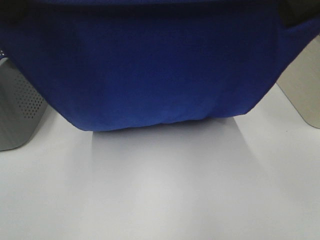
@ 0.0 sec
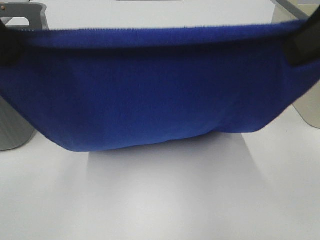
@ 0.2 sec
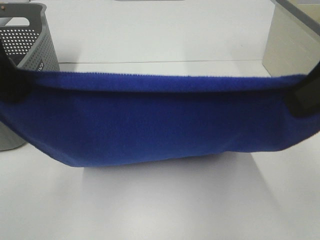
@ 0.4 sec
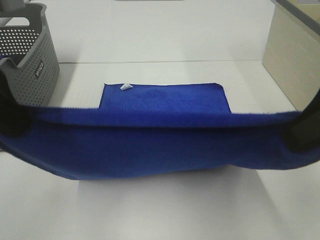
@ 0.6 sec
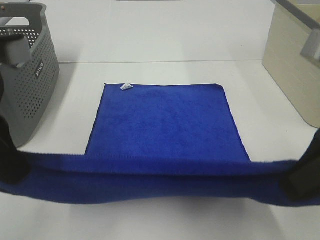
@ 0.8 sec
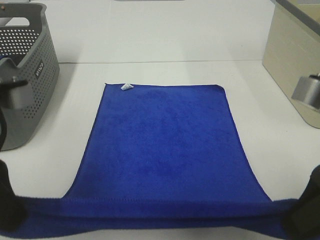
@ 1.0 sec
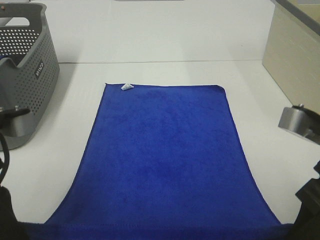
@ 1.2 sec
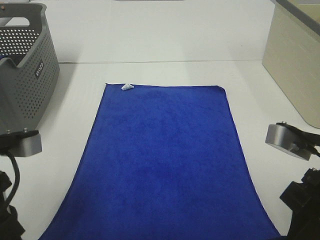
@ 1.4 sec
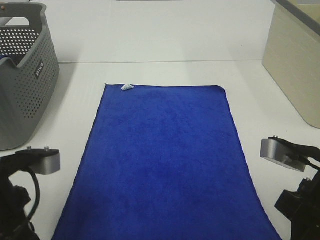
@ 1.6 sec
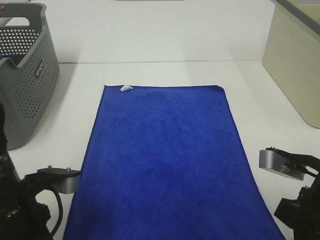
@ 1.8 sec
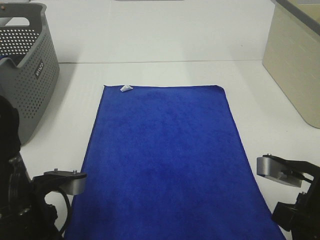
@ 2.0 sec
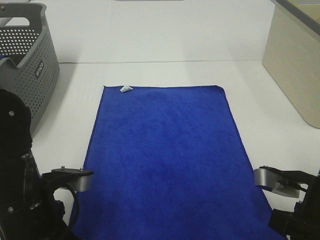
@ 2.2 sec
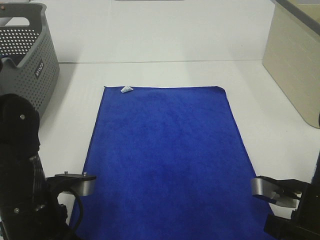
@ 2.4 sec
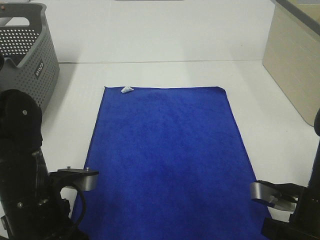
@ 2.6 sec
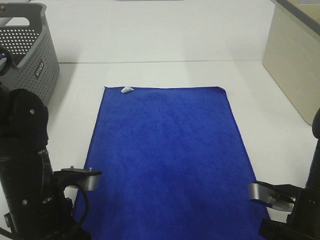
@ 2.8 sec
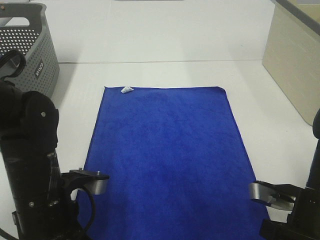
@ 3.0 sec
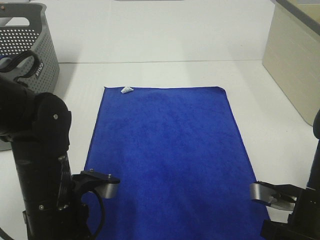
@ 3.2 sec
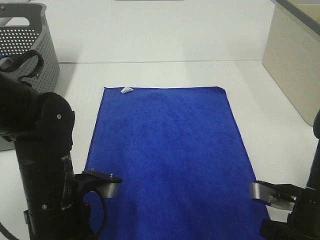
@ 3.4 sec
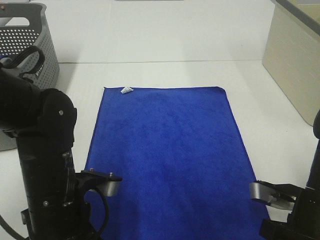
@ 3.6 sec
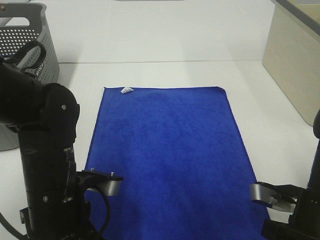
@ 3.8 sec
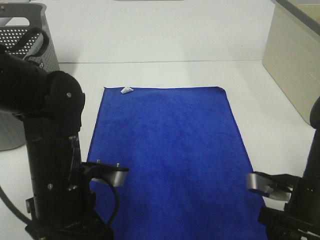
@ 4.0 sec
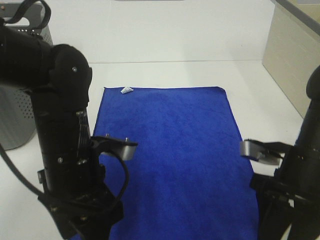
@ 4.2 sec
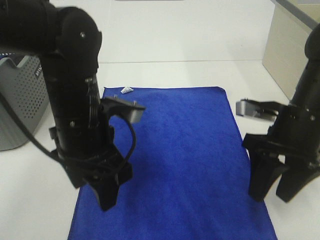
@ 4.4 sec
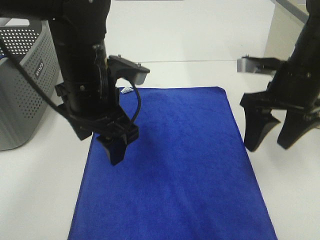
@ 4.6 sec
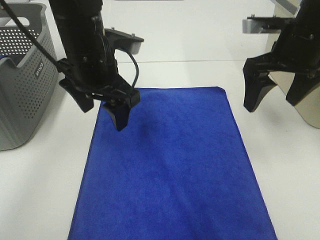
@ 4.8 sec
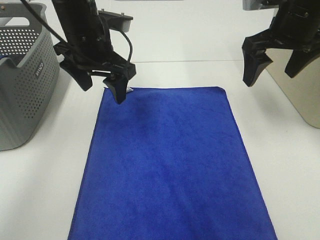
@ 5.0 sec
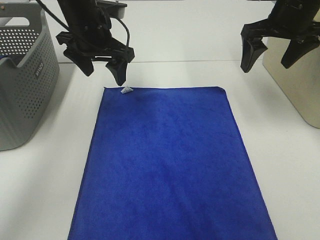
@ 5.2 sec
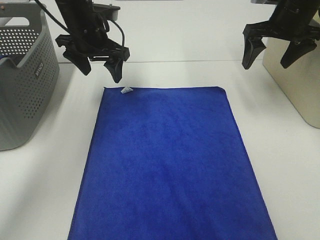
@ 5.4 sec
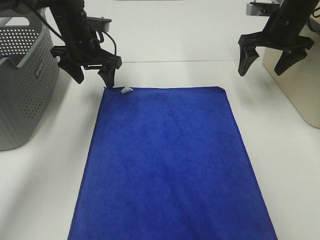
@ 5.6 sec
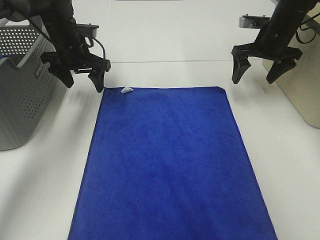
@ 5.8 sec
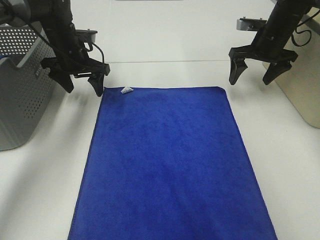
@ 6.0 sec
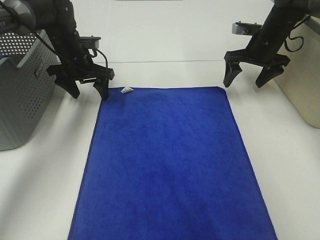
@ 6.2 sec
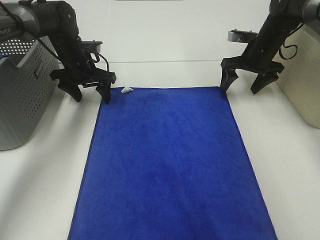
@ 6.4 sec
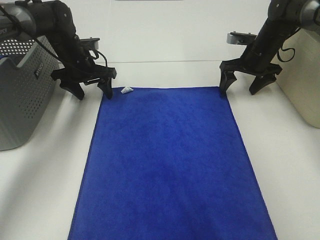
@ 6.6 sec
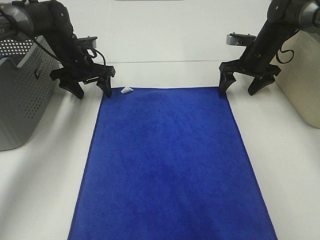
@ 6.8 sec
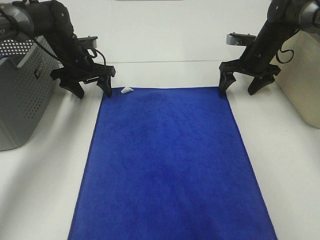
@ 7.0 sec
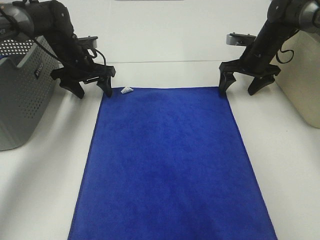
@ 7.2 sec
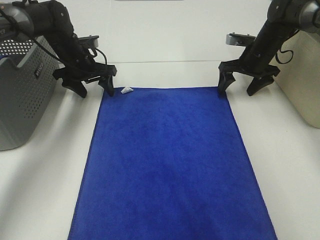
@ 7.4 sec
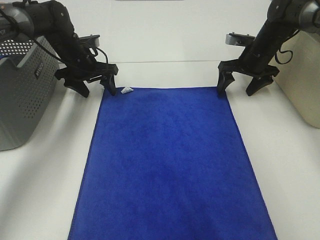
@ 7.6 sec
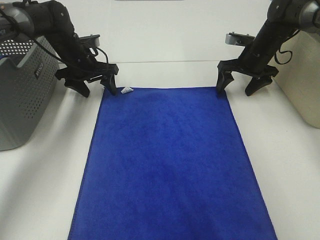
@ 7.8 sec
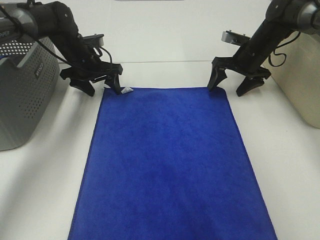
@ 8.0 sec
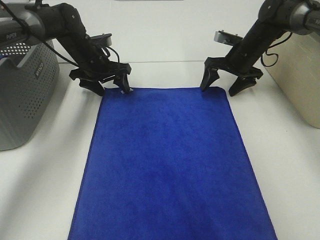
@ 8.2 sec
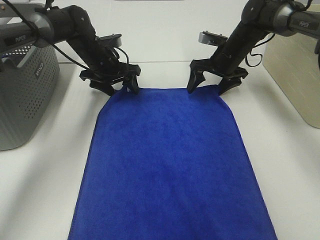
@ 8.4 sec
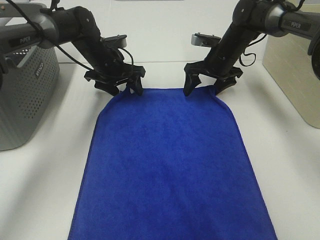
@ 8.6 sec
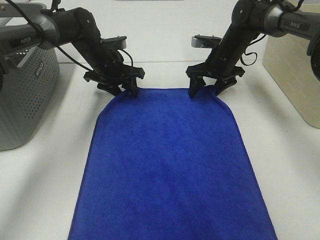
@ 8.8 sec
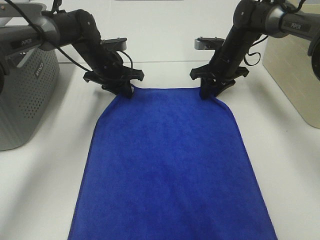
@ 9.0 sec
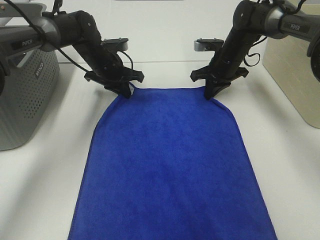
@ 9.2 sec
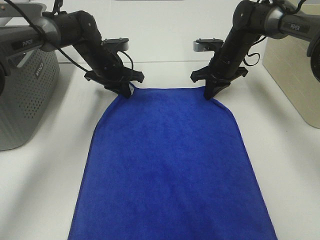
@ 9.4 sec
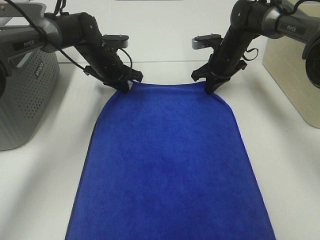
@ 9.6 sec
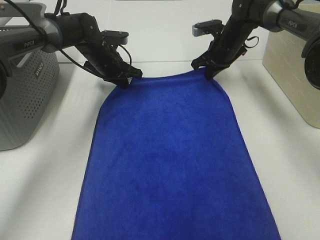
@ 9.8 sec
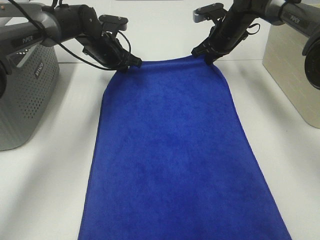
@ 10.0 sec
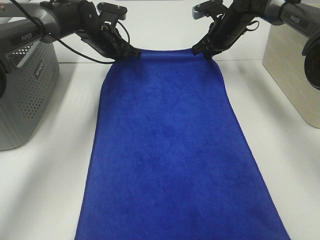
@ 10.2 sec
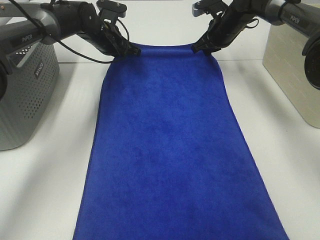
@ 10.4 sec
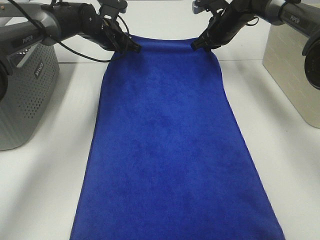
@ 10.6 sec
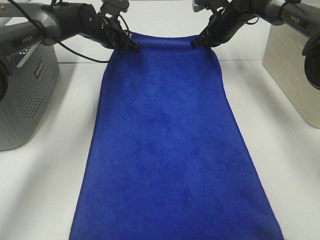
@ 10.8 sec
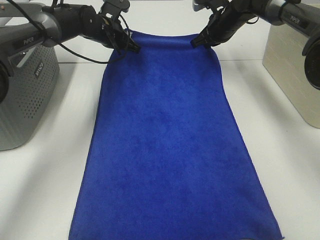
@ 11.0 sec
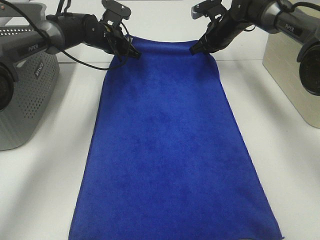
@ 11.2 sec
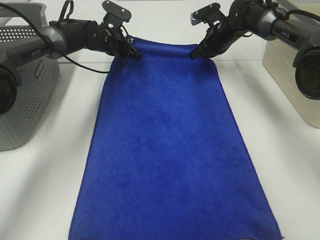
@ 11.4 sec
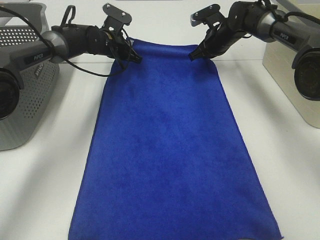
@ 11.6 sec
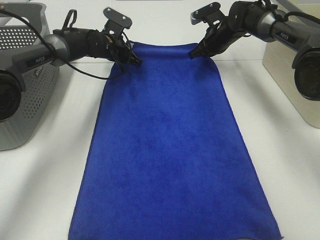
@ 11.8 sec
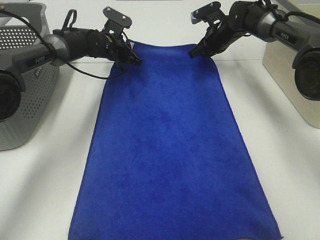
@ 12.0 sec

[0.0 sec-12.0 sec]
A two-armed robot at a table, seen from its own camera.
Task of the whole recording: Remove the towel and place it.
Step, 0.0 sec to 6.2 sec: Left hand:adjust the blue towel.
Step, 0.0 sec to 6.2 sec: Right hand:adjust the blue towel.
0.0 sec to 1.6 sec: Both grippers travel together downward, roughly 25 cm.
1.6 sec to 3.0 sec: The two grippers go some 5 cm downward.
3.0 sec to 4.4 sec: The right gripper heads forward and upward, covering roughly 10 cm, and opens its fingers; the left gripper is displaced upward, forward and to the right by about 10 cm, and opens up.
4.4 sec to 6.0 sec: The right gripper moves forward, roughly 25 cm, while the left gripper goes roughly 25 cm forward and to the left.
6.0 sec to 7.6 sec: The right gripper moves some 5 cm.
7.6 sec to 9.0 sec: The left gripper goes some 5 cm to the right, and closes its fingers, while the right gripper heads to the left, covering approximately 5 cm, and closes its fingers.
9.0 sec to 10.4 sec: The right gripper travels upward by about 5 cm, and closes its fingers, while the left gripper ends up some 5 cm from where it was.
10.4 sec to 12.0 sec: The grippers stay close to where they were, moving slightly.

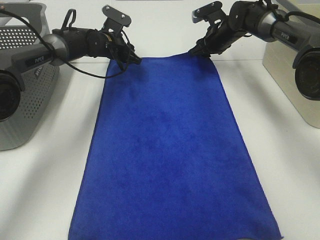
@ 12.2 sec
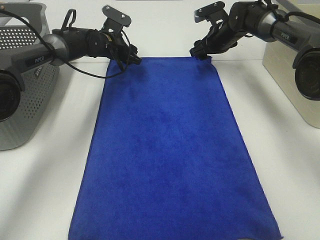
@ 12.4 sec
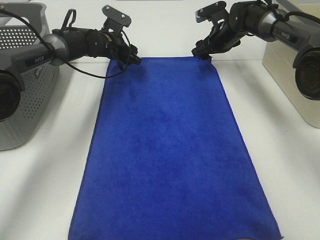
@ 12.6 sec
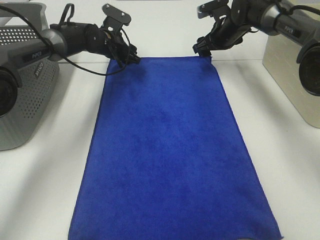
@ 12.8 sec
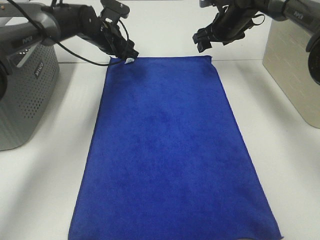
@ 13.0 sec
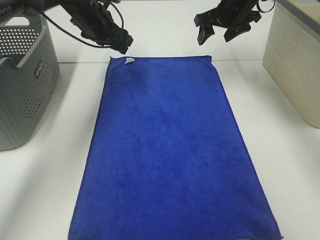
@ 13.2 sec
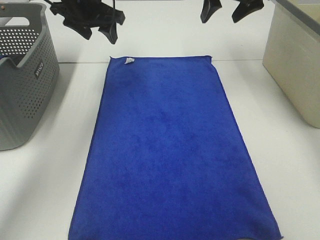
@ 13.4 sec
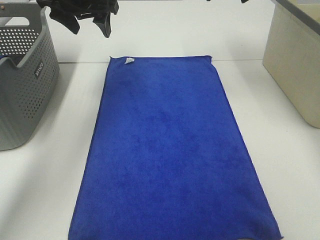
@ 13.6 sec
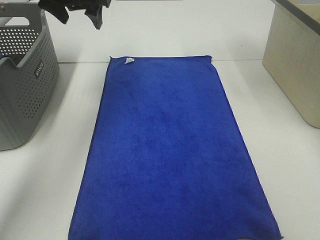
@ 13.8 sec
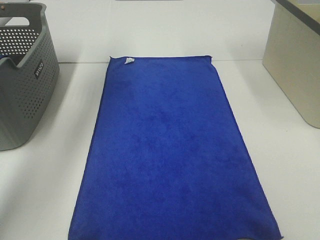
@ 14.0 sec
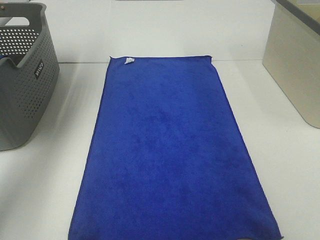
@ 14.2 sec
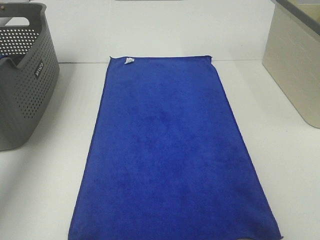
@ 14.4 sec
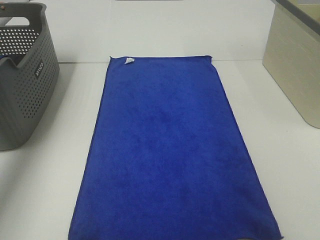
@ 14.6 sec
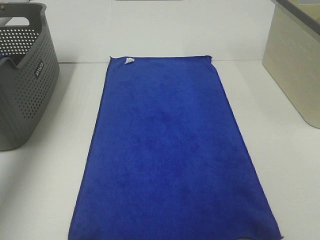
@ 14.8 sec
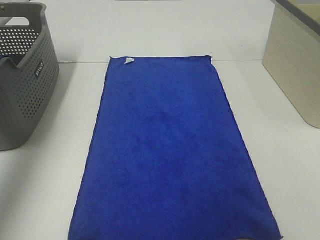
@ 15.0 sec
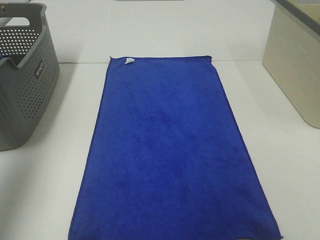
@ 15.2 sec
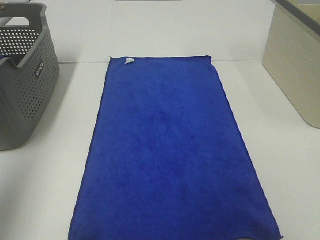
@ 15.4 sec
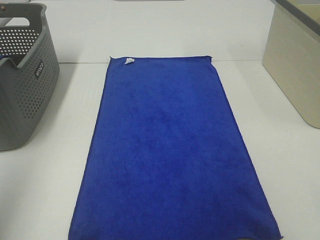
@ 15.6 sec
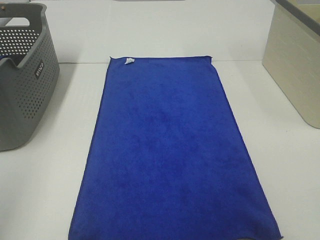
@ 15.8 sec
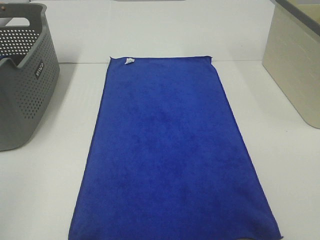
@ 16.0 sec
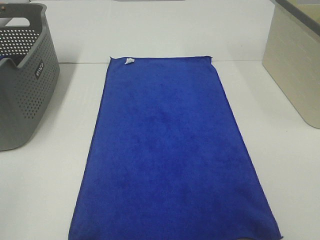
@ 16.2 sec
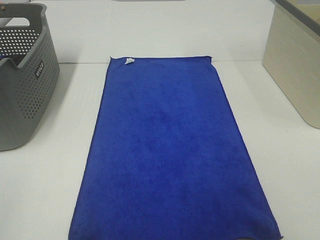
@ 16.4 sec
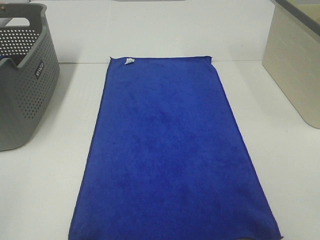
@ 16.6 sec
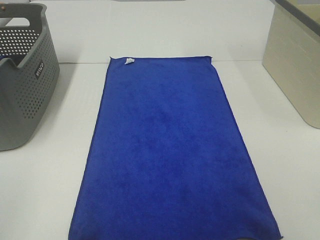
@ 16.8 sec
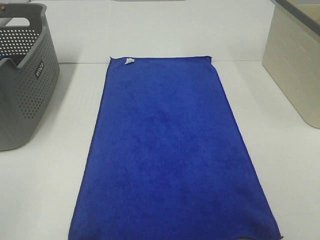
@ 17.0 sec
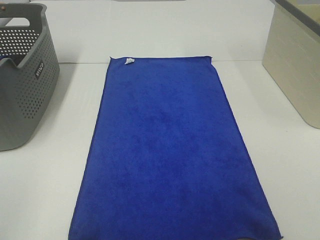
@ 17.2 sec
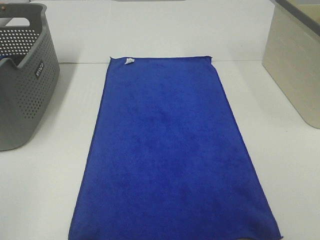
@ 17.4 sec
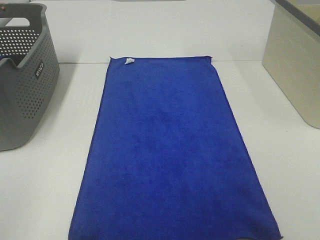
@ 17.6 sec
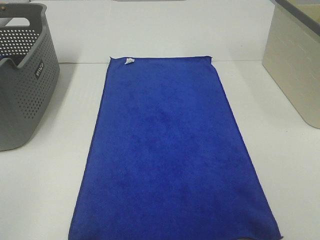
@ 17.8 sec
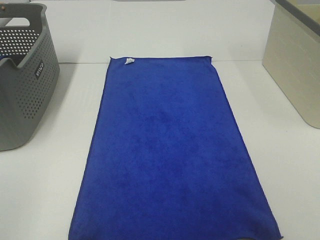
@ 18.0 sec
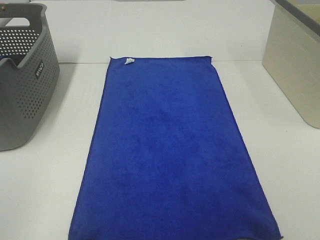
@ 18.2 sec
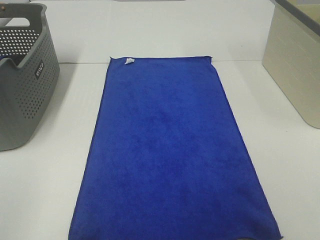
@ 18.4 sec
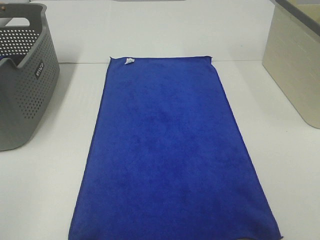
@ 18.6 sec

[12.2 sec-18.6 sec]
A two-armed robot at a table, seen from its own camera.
Task of the whole recording: Remove the towel and place it.
12.2 sec to 13.8 sec: The two grippers go about 25 cm upward and backward.
13.8 sec to 15.4 sec: The left gripper travels backward and to the left by approximately 35 cm, while the right gripper heads backward, covering some 35 cm.
15.4 sec to 17.0 sec: The left gripper goes roughly 20 cm backward and downward.
